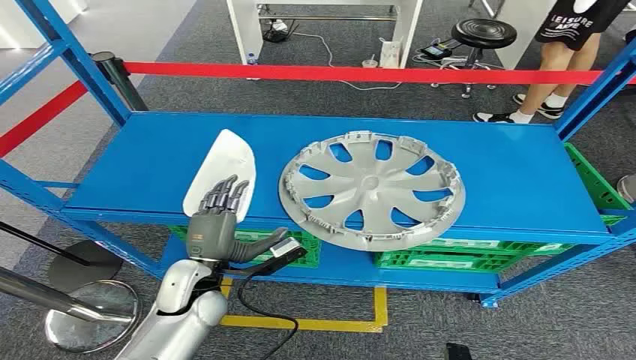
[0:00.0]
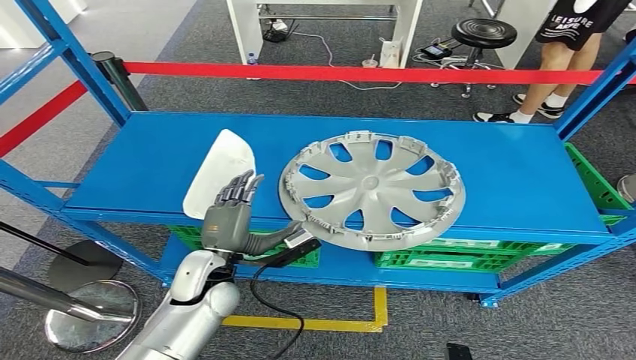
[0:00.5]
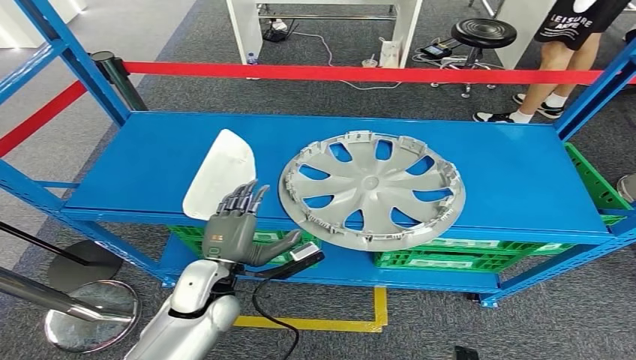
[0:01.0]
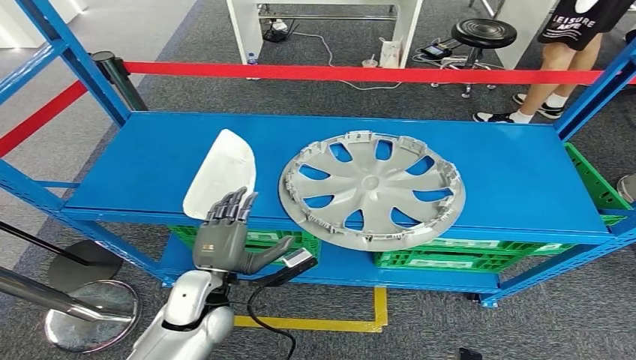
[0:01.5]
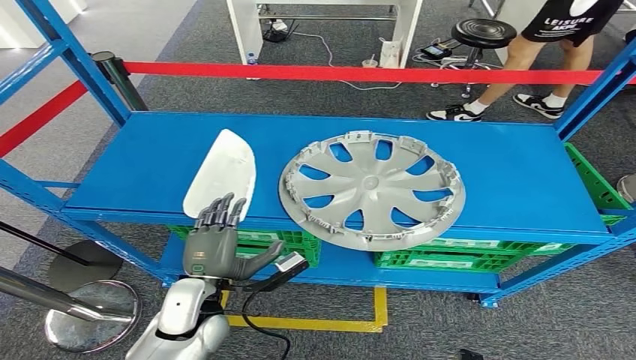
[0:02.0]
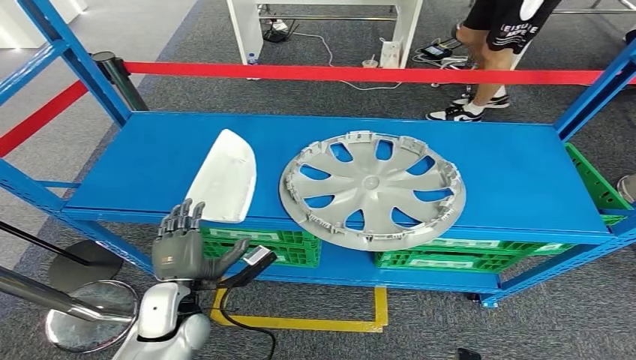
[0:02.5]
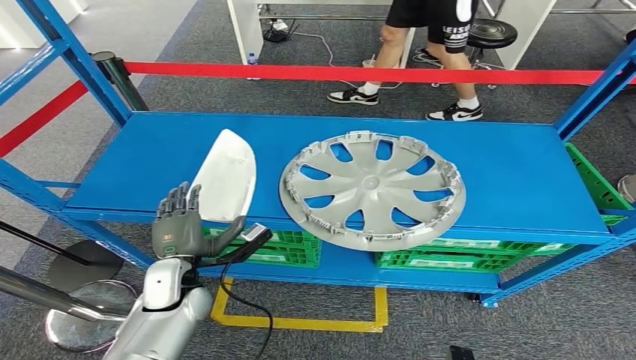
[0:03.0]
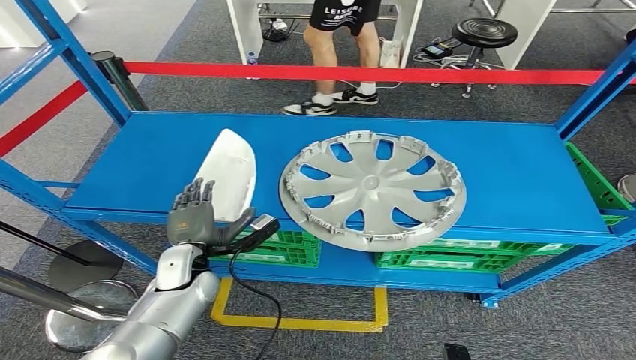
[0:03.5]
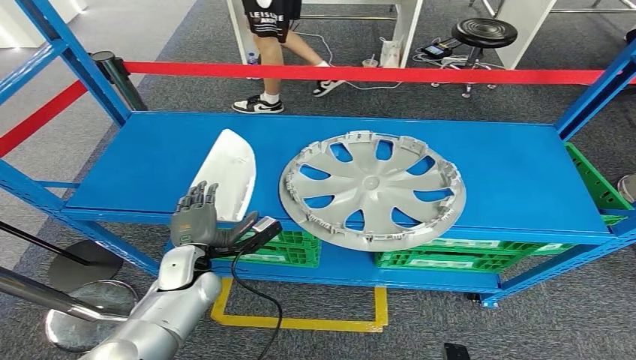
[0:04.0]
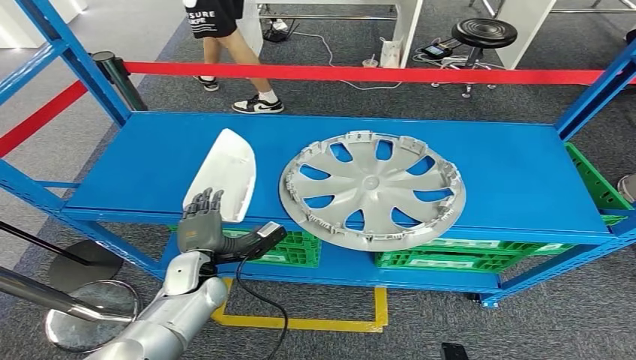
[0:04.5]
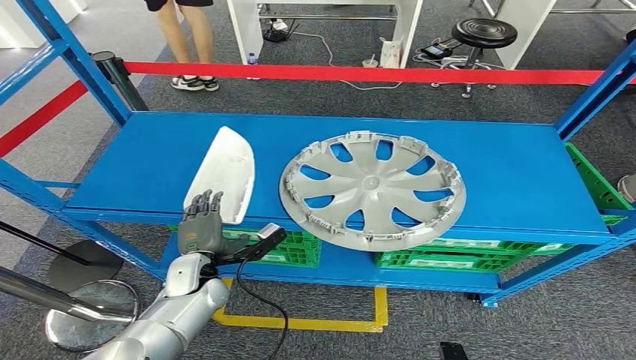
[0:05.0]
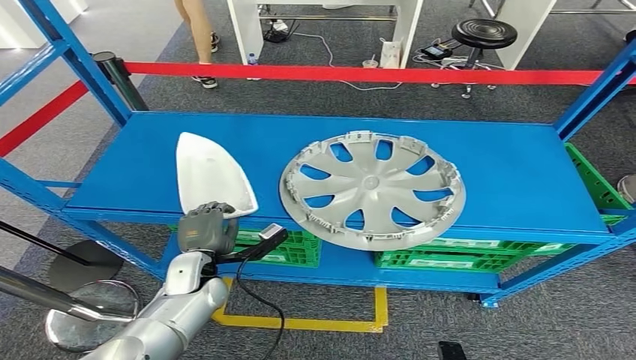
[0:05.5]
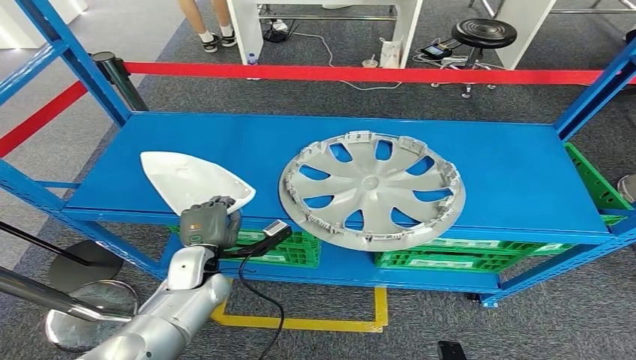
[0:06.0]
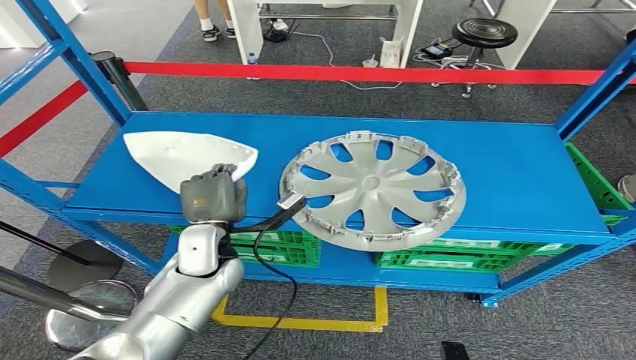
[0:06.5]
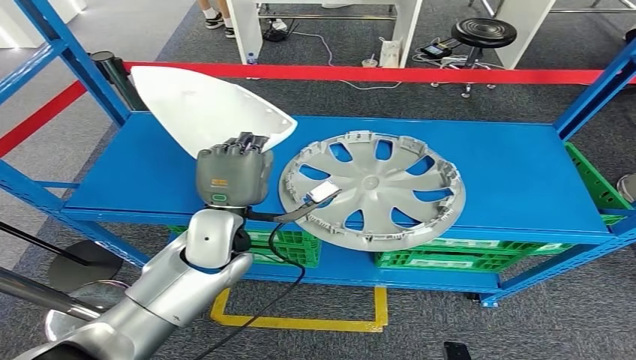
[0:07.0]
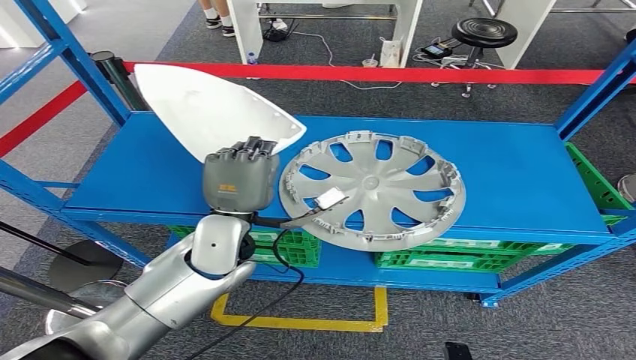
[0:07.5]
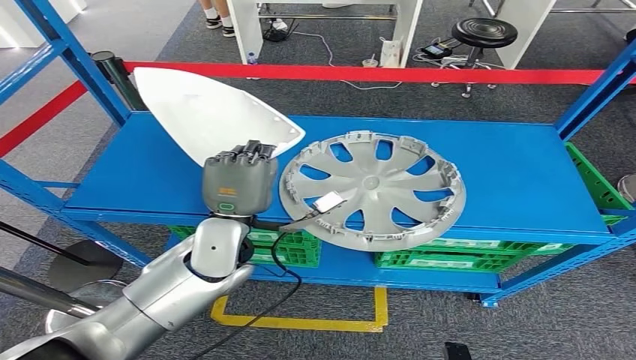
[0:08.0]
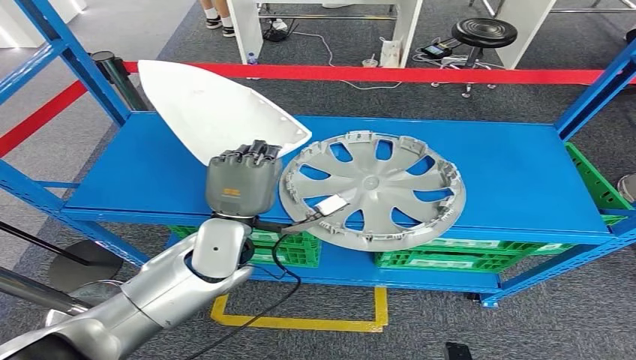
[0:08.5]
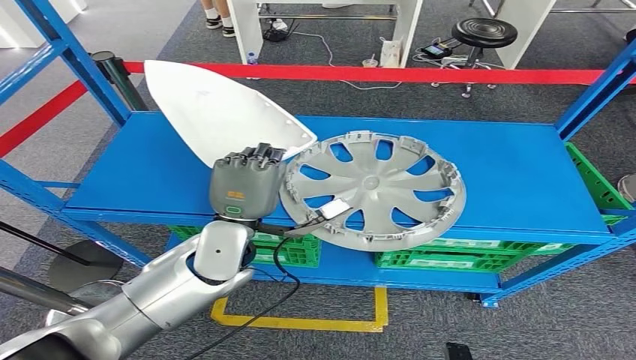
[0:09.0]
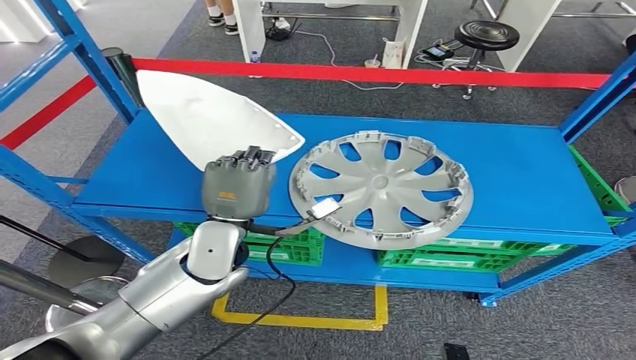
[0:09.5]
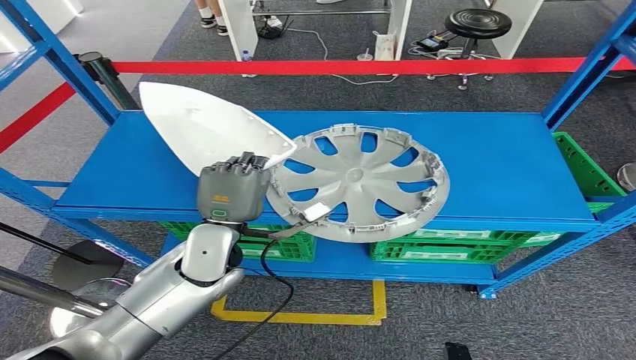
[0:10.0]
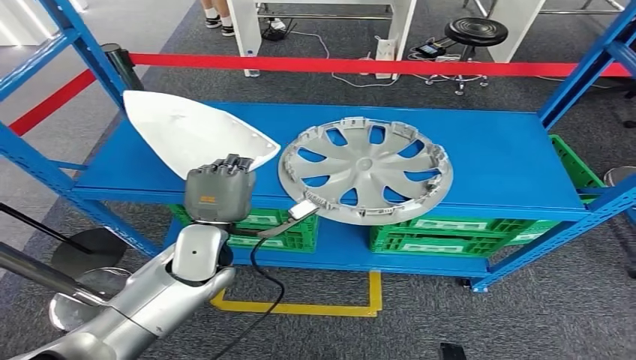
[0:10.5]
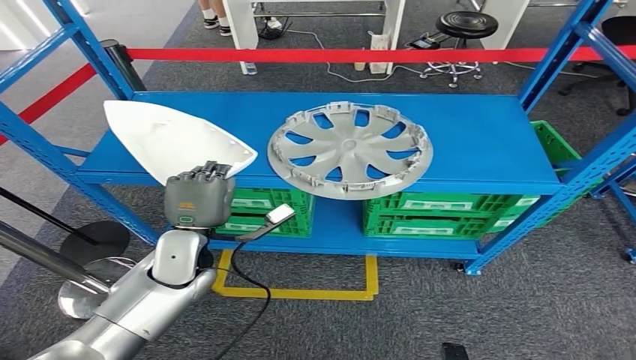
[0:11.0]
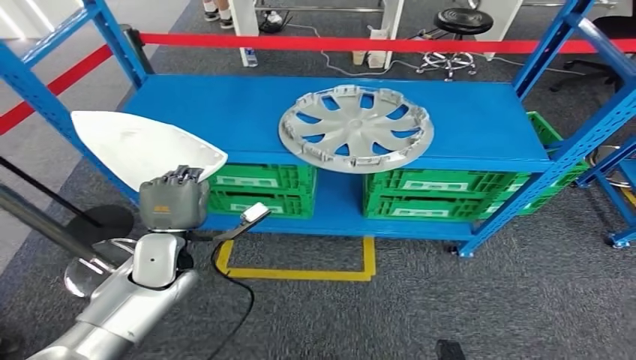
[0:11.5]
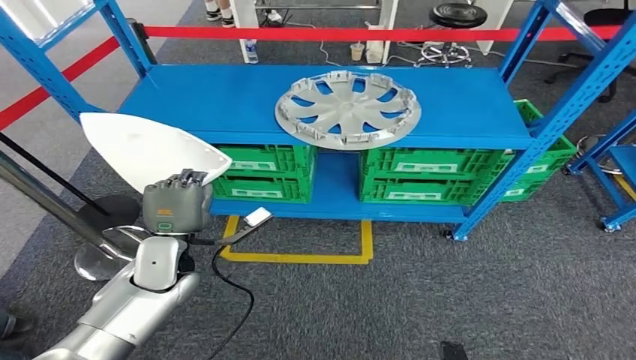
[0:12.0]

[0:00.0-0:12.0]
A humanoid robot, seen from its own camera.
Step, 0:00.0 to 0:08.0: Pick up the small parts from the shelf.
0:02.0 to 0:04.0: The left hand is displaced forward by roughly 10 cm.
0:04.0 to 0:06.0: The hands move only a little.
0:06.0 to 0:08.0: The left hand heads upward and to the right, covering roughly 15 cm.

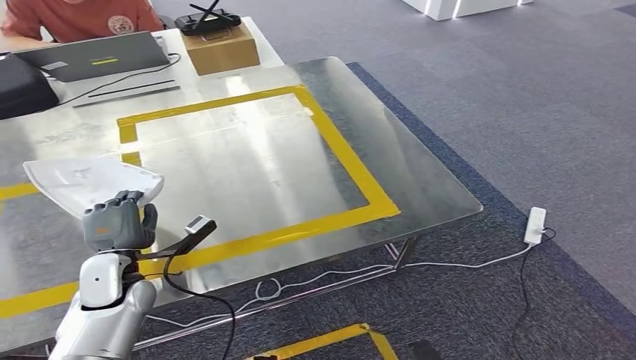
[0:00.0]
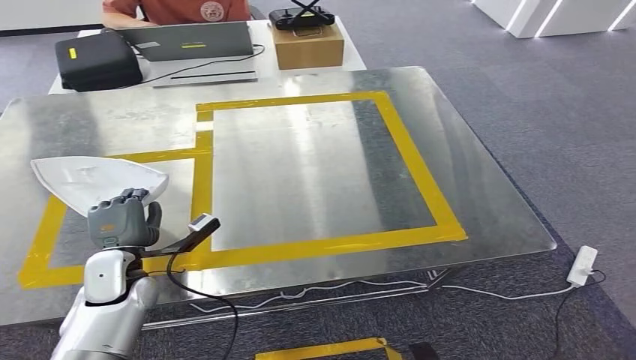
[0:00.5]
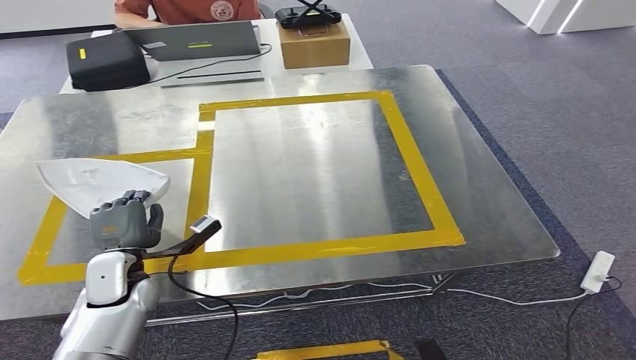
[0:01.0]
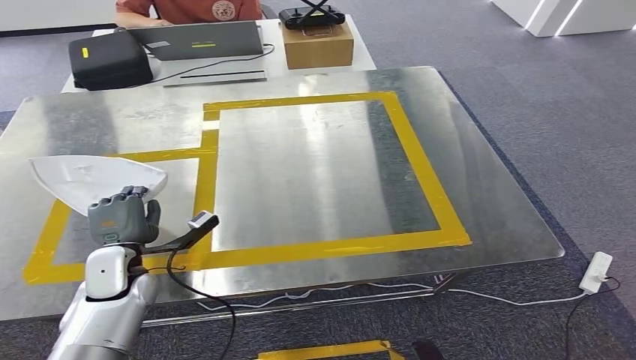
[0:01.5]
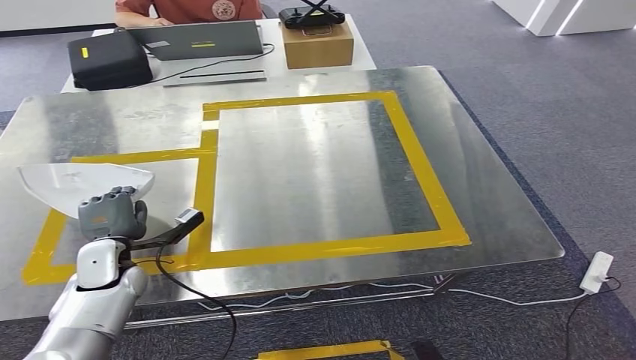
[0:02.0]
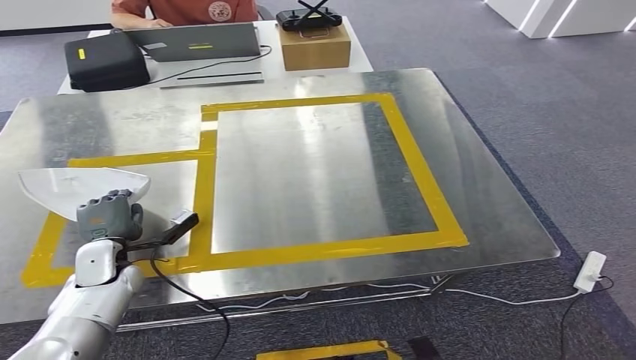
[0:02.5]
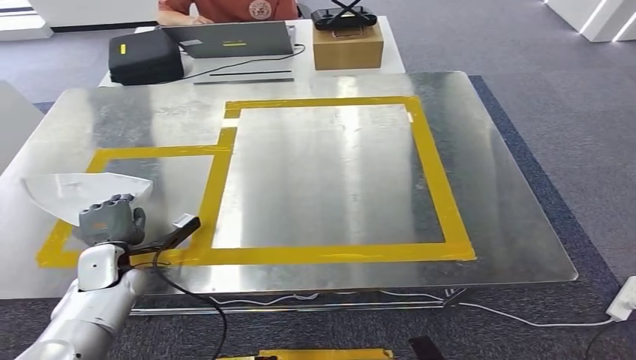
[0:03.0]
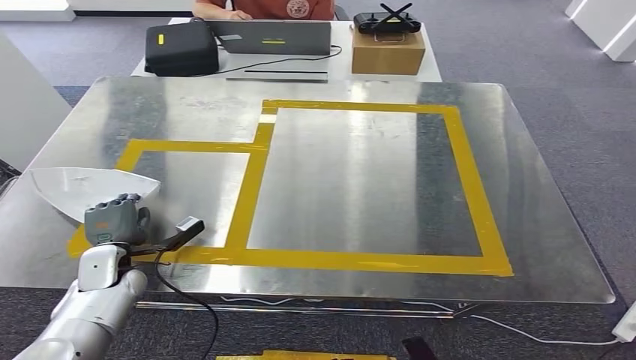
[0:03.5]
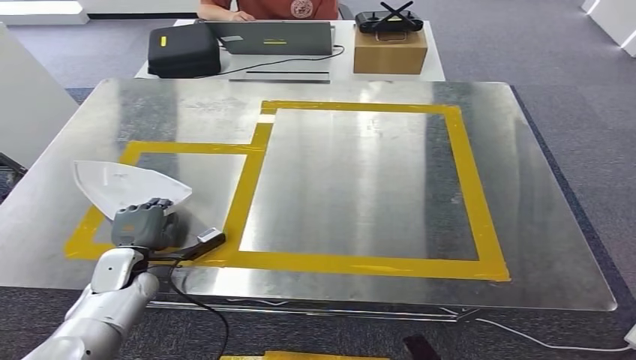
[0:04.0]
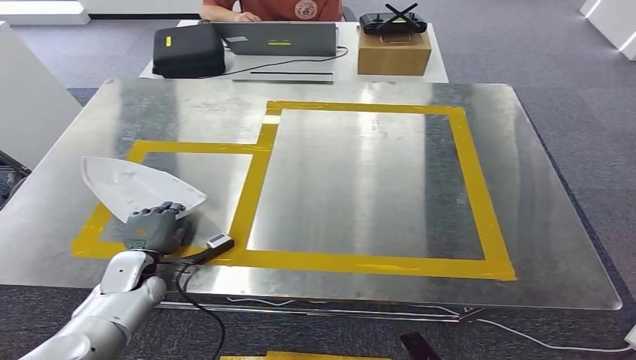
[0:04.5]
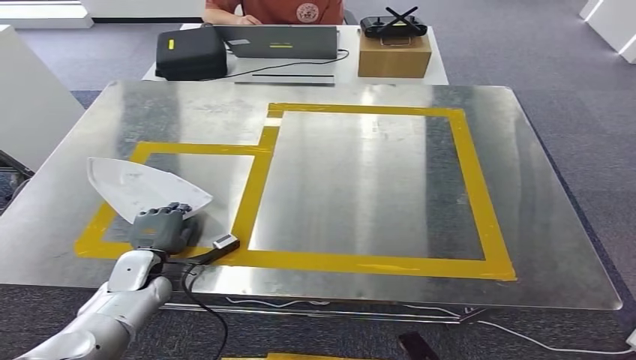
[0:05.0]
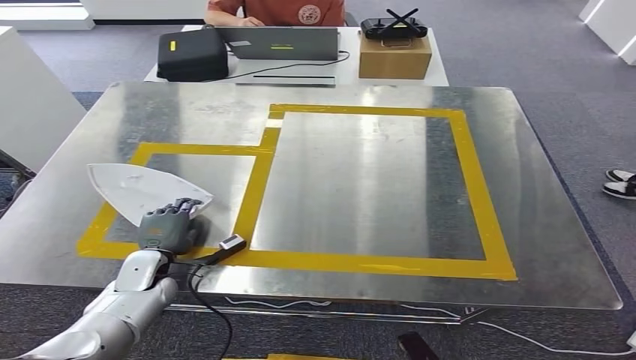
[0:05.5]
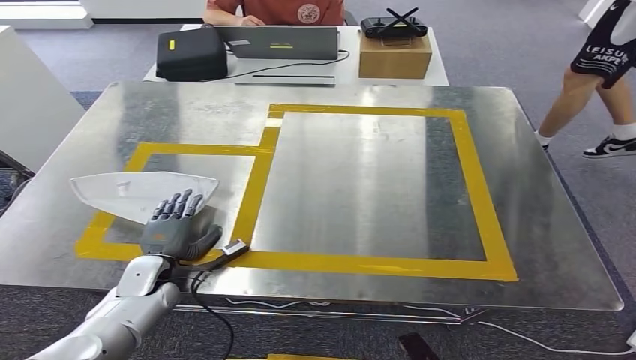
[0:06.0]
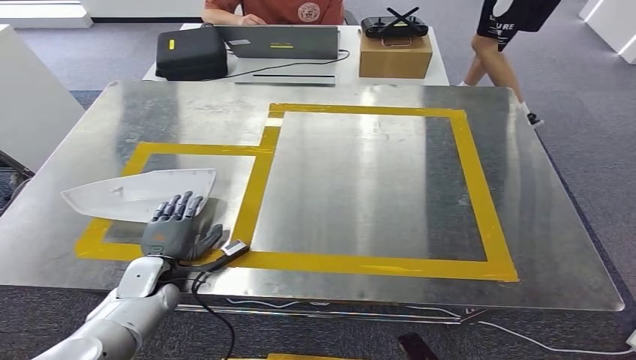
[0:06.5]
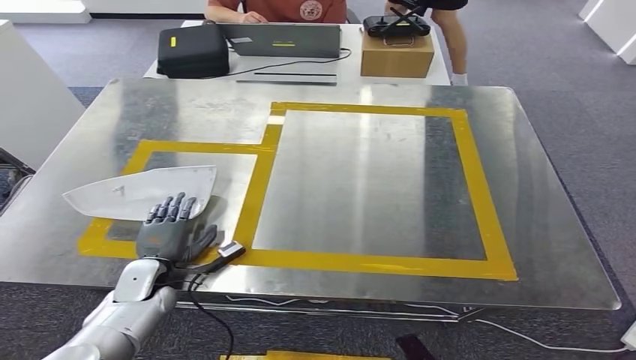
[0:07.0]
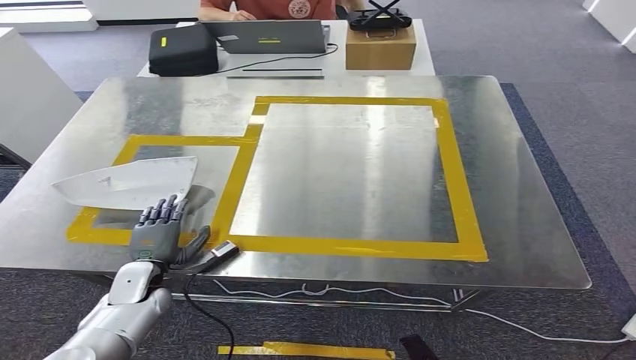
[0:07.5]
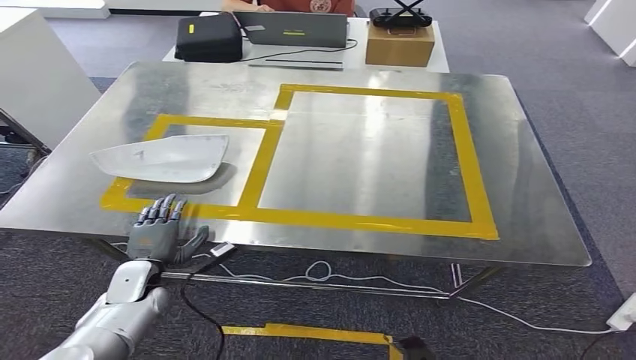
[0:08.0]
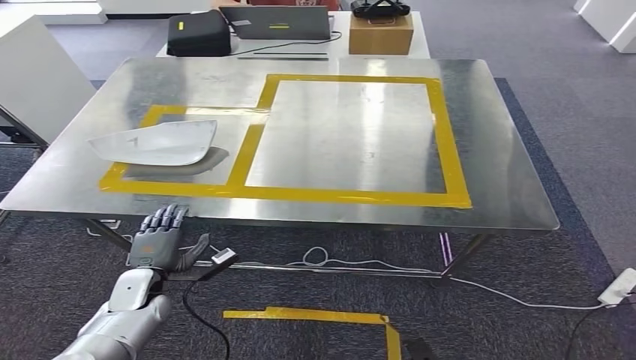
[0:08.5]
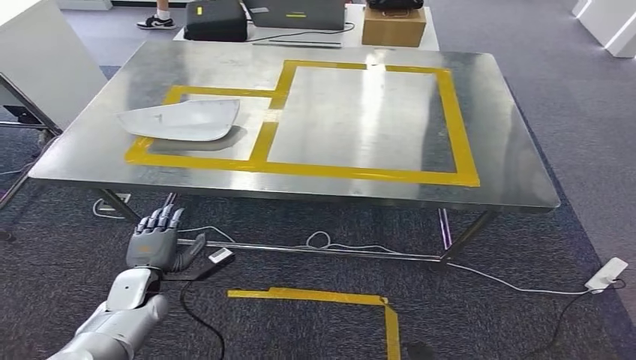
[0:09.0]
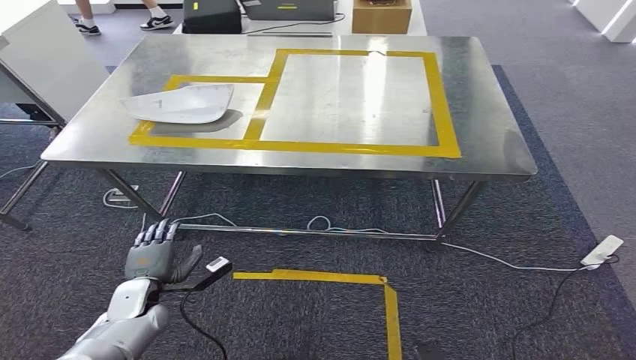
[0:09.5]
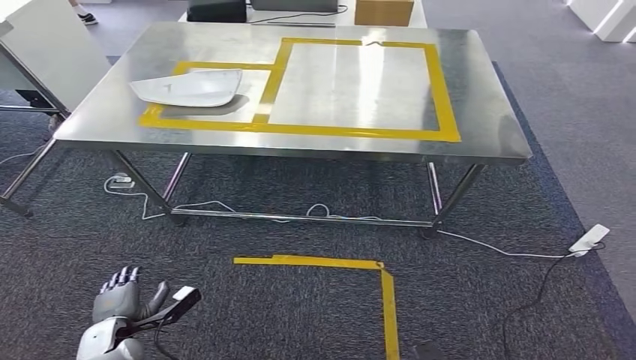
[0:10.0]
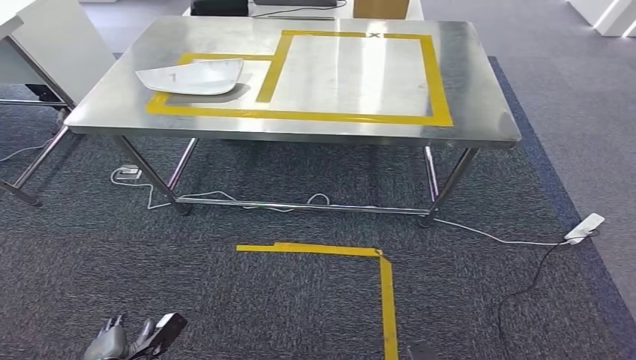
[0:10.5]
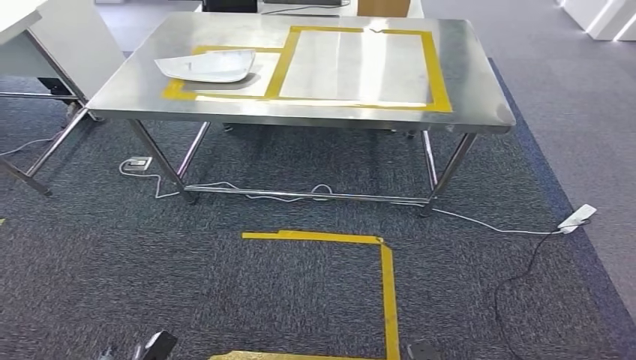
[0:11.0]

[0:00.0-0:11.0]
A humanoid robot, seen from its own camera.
Step, 0:01.0 to 0:09.0: Insert the small parts into the corresponding holes on the workbench.
